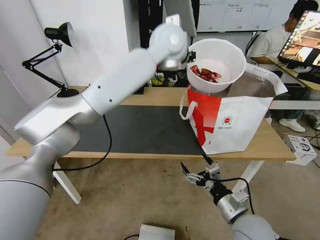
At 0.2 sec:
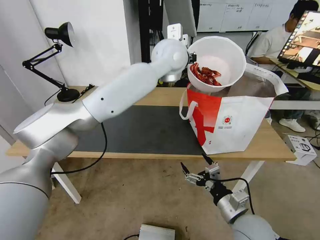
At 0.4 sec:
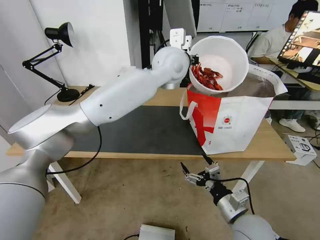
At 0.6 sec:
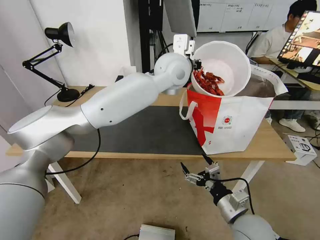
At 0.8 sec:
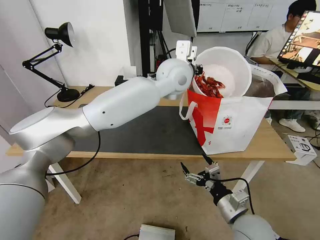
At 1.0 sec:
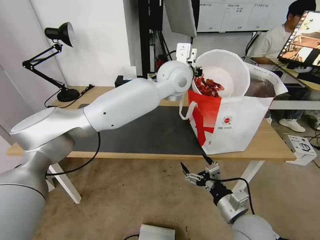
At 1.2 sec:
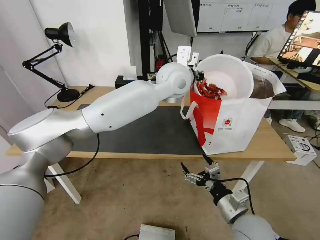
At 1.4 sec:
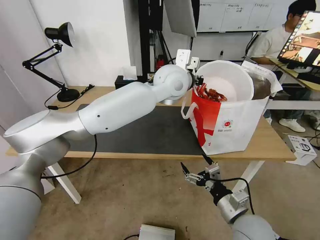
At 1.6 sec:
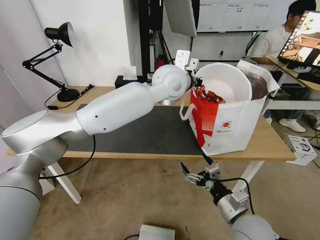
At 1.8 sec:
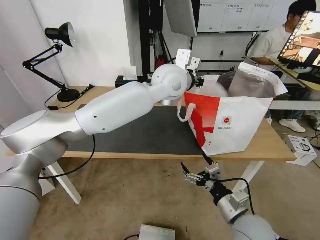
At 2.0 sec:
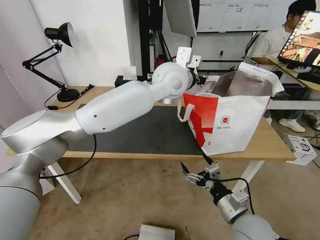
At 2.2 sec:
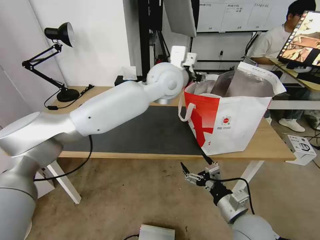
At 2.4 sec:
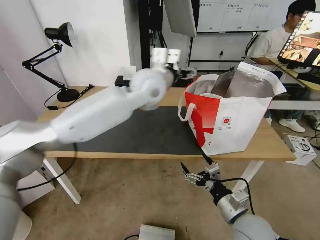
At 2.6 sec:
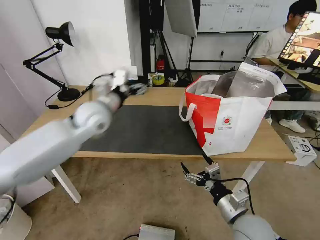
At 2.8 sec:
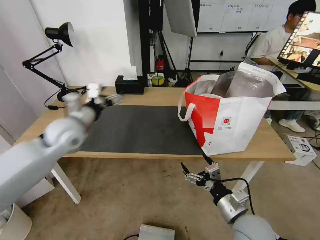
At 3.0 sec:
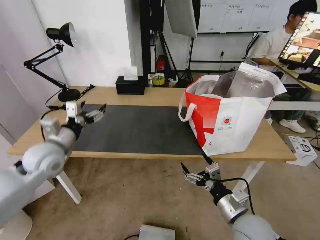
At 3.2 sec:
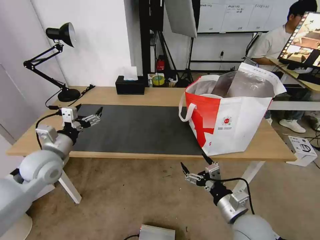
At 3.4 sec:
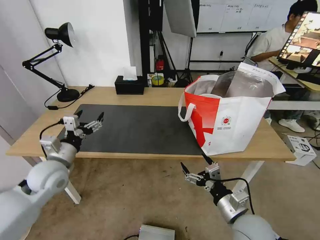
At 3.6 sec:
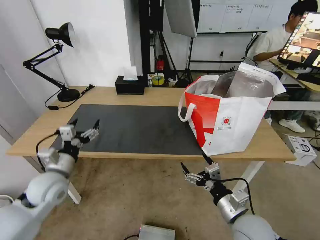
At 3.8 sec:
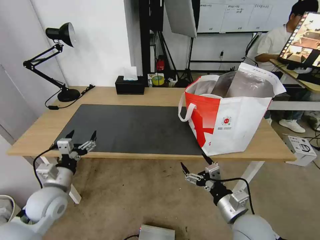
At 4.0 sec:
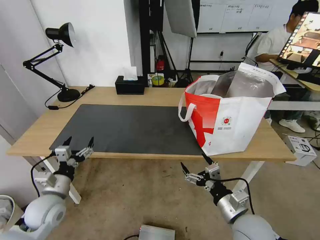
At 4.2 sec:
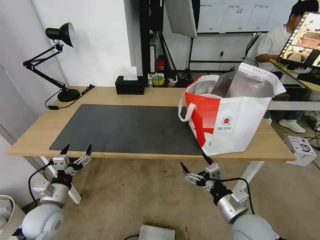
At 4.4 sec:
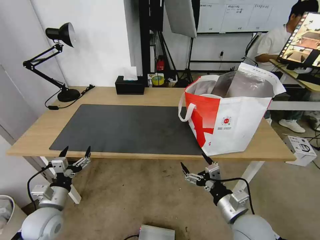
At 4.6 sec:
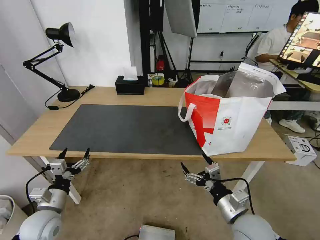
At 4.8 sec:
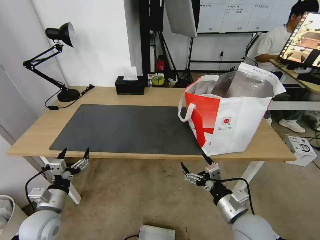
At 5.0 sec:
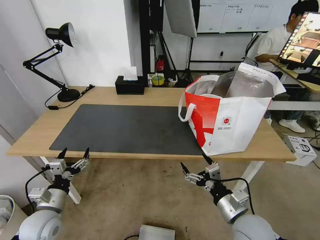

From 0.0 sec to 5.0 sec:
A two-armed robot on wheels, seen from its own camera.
Task of the whole recording: Pick up the trash from the table and place it into the takeout bag.
From 0.0 sec to 1.6 sec: The left gripper heads downward, covering some 10 cm.
From 1.6 sec to 3.4 sec: The left gripper is displaced to the left, downward and backward by approximately 40 cm, and opens.
From 3.4 sec to 5.0 sec: The left gripper moves downward and backward, roughly 15 cm.
